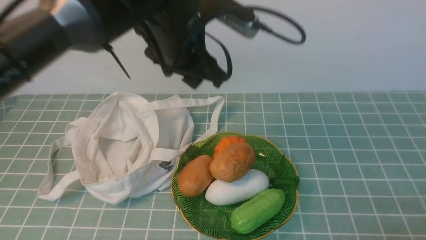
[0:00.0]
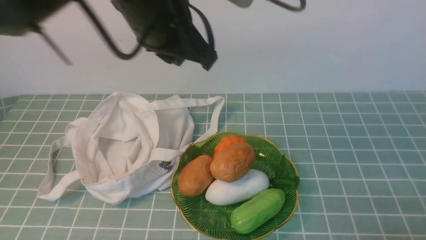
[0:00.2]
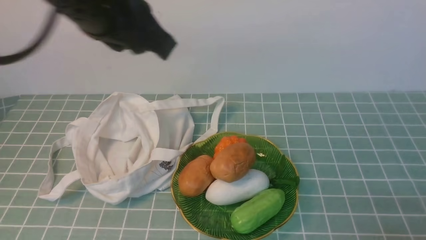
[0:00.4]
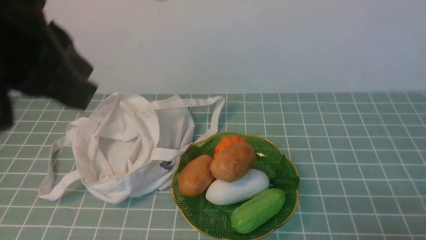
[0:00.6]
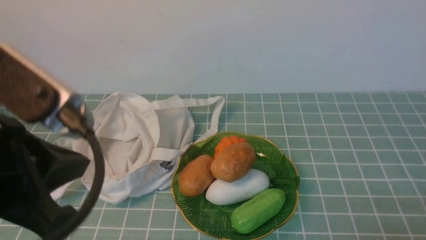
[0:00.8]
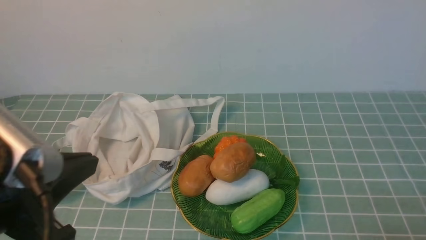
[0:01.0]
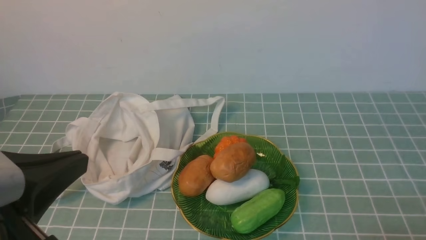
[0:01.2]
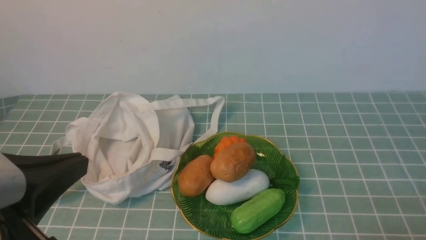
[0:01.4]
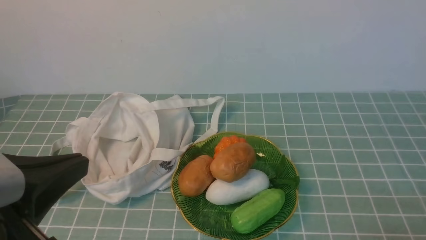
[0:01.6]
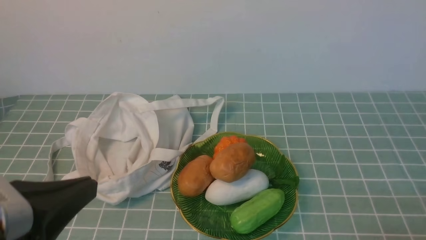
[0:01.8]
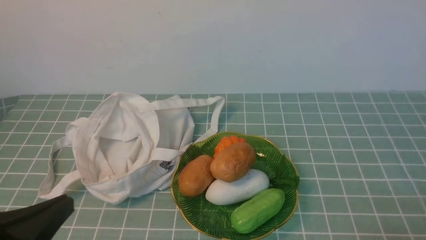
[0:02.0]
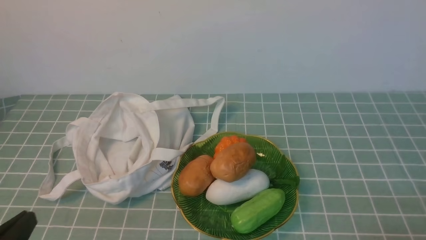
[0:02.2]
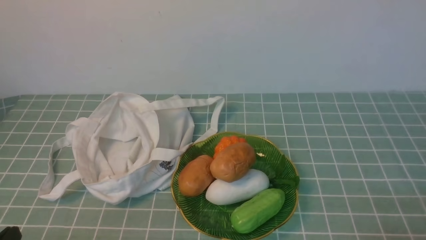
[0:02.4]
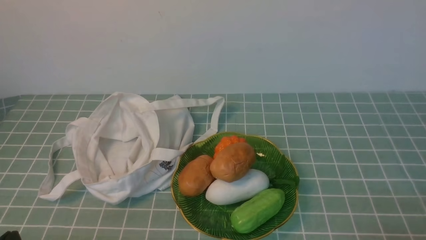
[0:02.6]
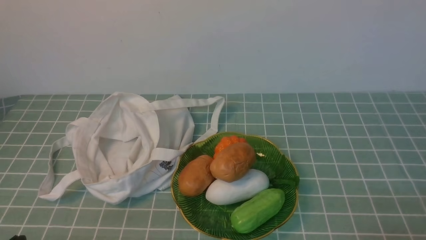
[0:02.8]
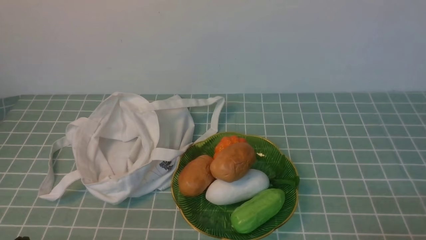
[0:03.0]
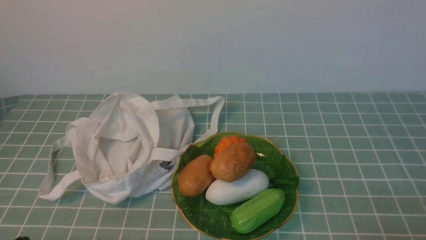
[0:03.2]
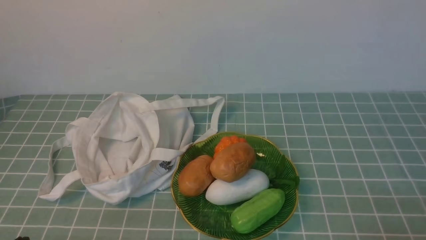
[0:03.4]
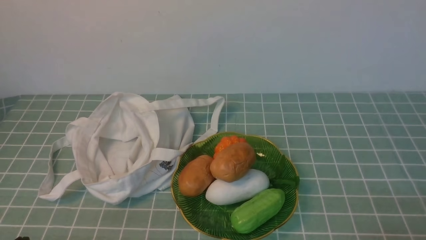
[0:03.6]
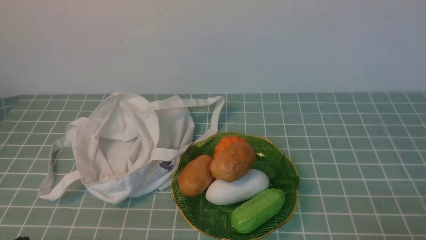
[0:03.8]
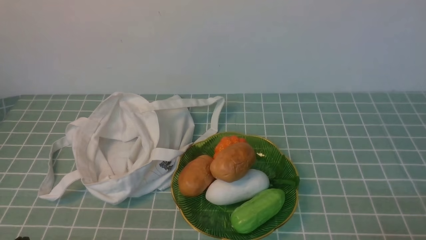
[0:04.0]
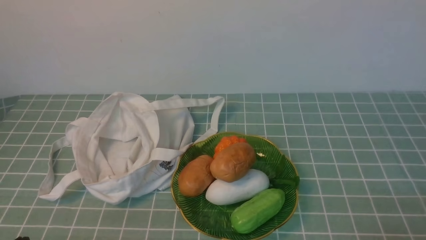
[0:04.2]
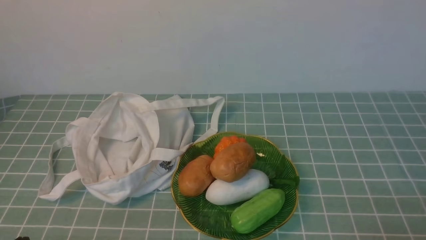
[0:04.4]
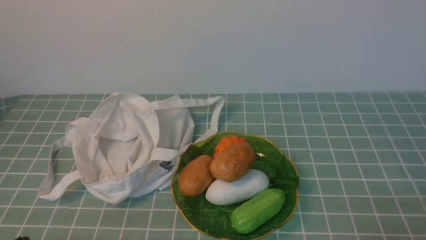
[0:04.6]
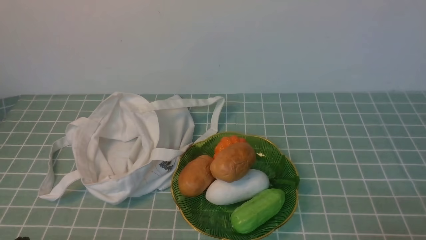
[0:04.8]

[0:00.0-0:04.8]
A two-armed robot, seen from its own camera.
Task of the whole recording: take vegetables from cloth bag on blue coffee tablecloth place on plate.
0:00.0 to 0:01.6: The left gripper goes about 30 cm backward and to the left, and closes up.
0:01.6 to 0:03.2: The left gripper moves downward, some 15 cm.
0:03.2 to 0:04.8: Neither gripper changes place.
